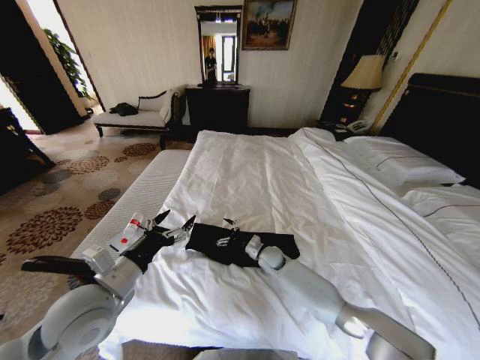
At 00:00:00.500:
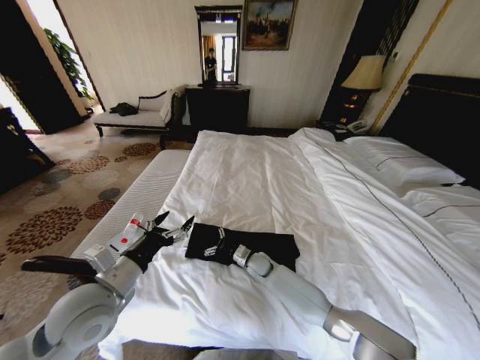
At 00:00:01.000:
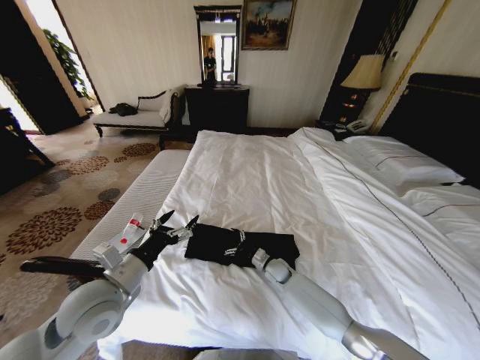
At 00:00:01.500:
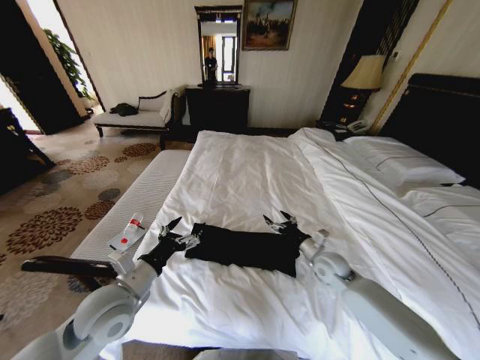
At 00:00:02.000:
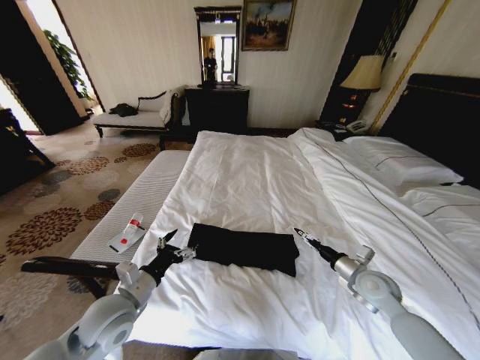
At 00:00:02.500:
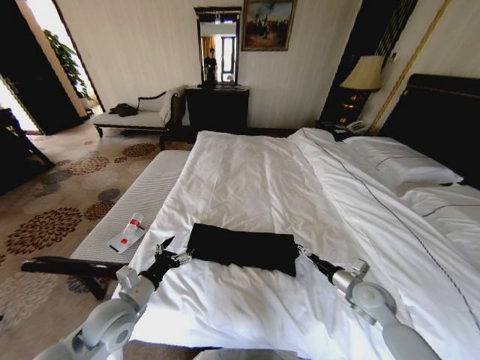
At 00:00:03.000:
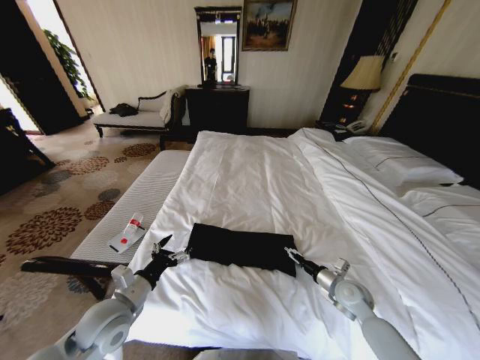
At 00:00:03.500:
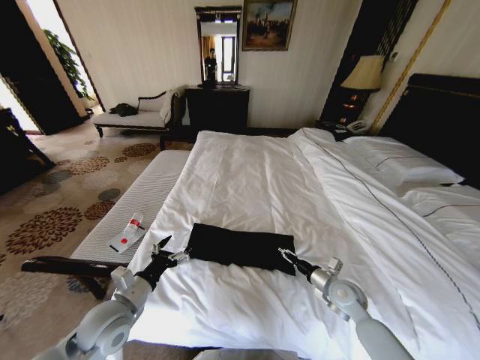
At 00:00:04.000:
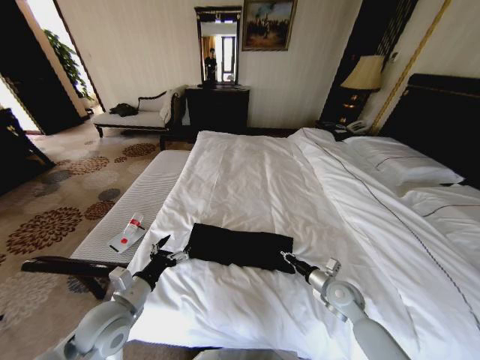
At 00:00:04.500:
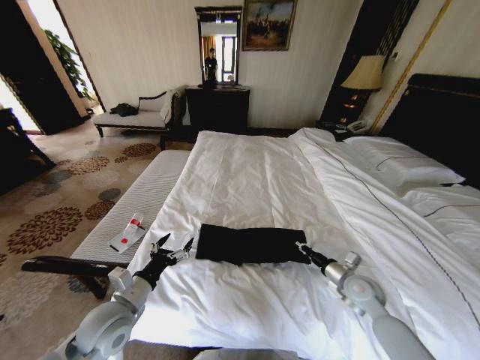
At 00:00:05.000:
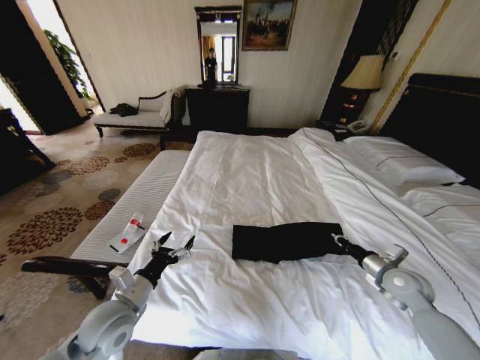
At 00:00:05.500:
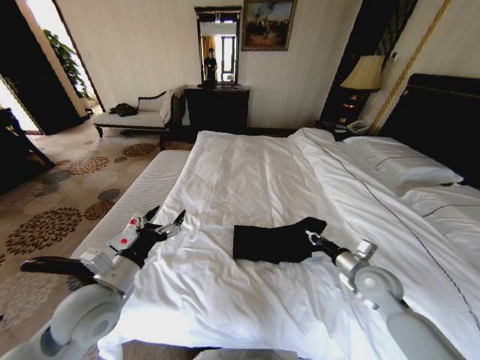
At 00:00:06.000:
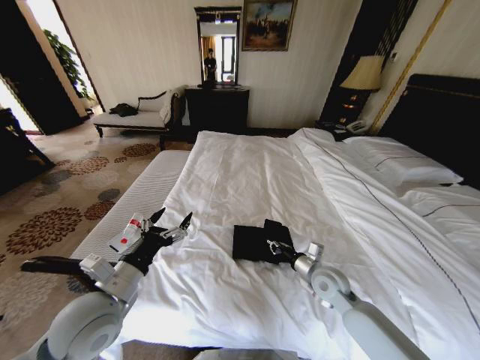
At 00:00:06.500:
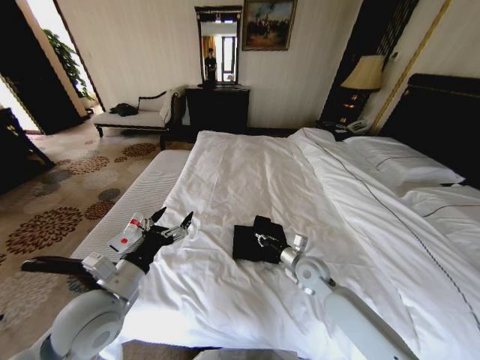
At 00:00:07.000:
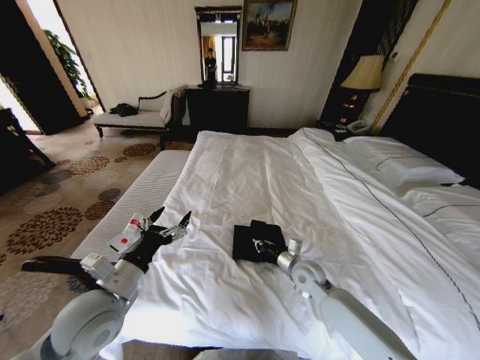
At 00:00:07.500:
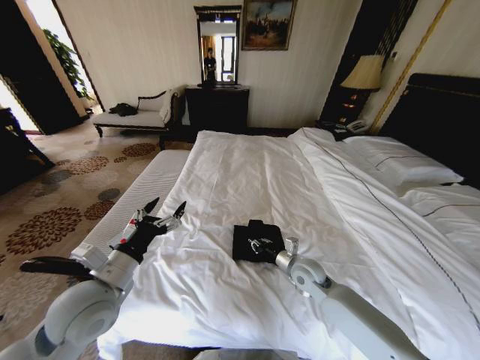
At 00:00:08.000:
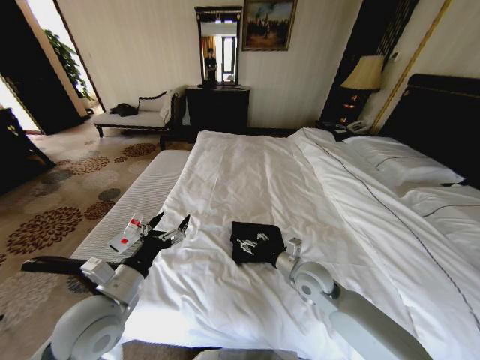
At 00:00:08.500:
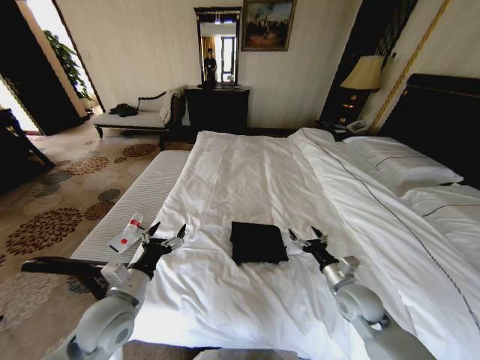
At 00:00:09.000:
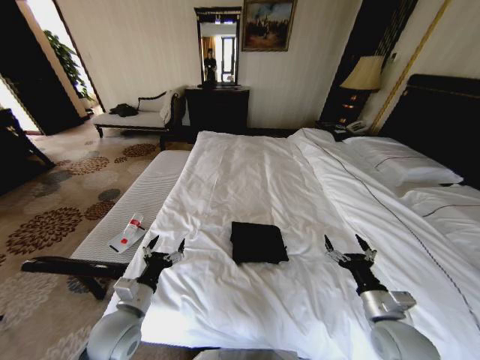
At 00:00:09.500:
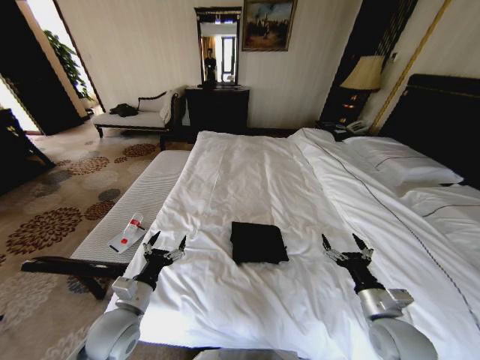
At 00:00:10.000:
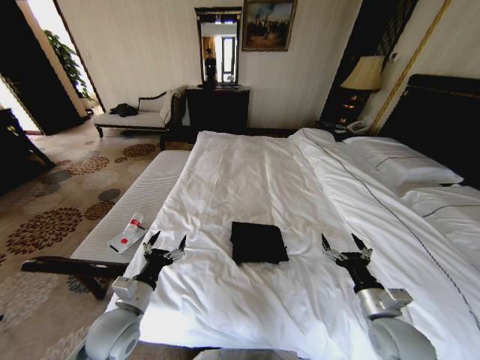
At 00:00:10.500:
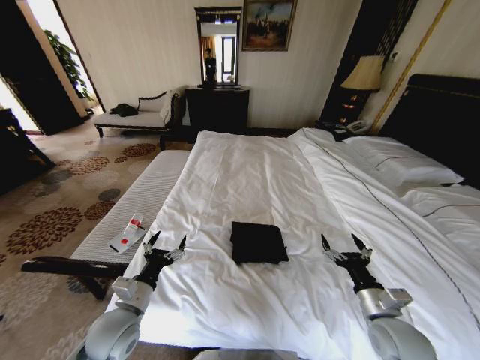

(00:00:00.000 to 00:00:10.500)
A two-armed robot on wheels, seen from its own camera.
Task of the whole recording: Fold the clothes on the bed.
00:00:00.000 - 00:00:02.000: The left gripper shifts some 10 cm downward. The right gripper goes some 30 cm to the right, backward and upward.
00:00:02.000 - 00:00:04.000: The right gripper moves downward and to the left, about 10 cm, and closes.
00:00:04.000 - 00:00:06.500: The right gripper is displaced to the left and forward by approximately 10 cm. Meanwhile the left gripper shifts roughly 10 cm upward.
00:00:06.500 - 00:00:08.500: The left gripper goes some 5 cm downward; the right gripper heads to the right and backward, covering some 10 cm, and opens its fingers.
00:00:08.500 - 00:00:10.500: The right gripper shifts roughly 10 cm backward.
